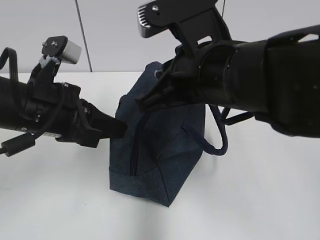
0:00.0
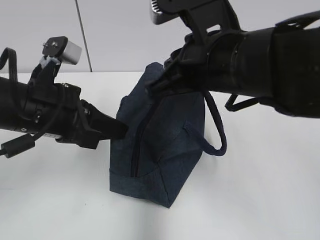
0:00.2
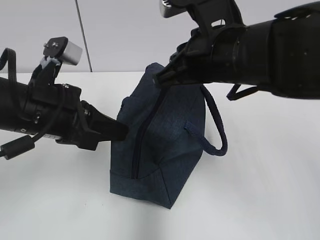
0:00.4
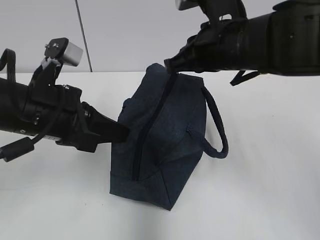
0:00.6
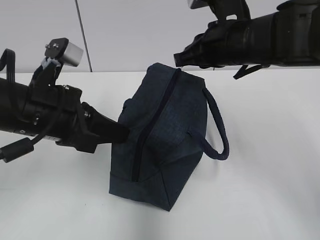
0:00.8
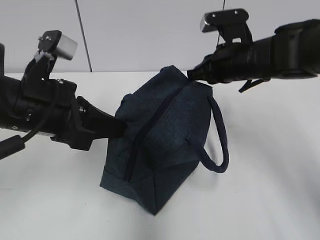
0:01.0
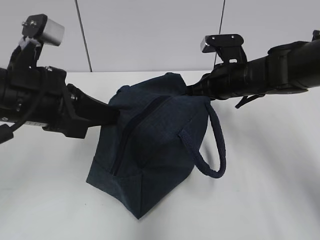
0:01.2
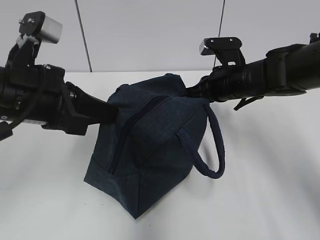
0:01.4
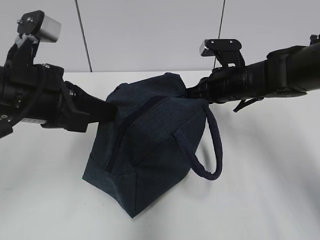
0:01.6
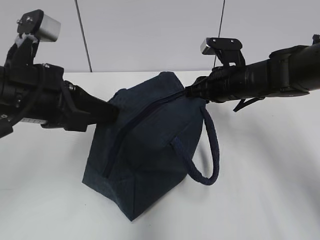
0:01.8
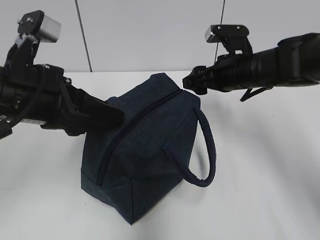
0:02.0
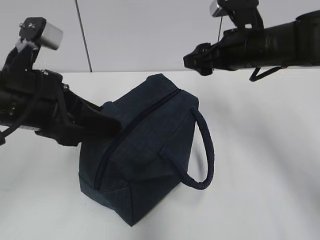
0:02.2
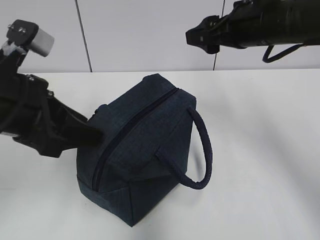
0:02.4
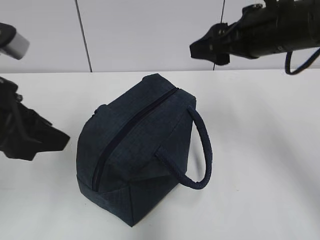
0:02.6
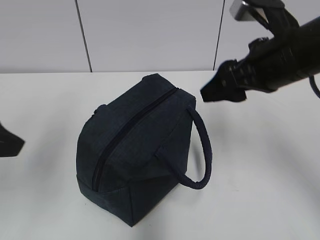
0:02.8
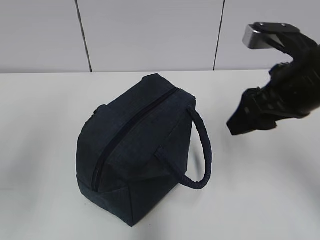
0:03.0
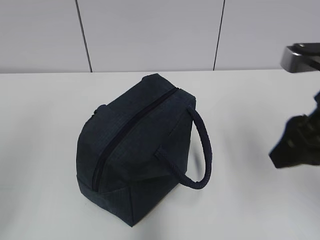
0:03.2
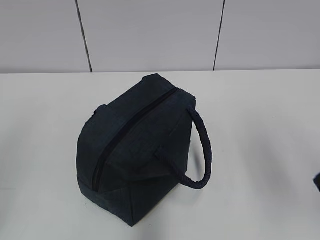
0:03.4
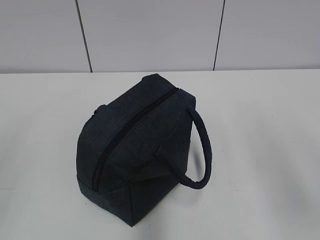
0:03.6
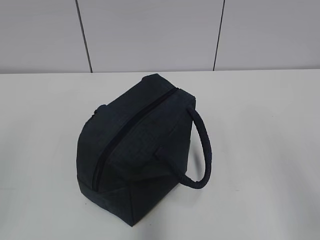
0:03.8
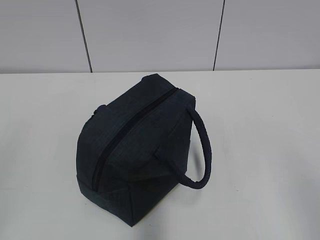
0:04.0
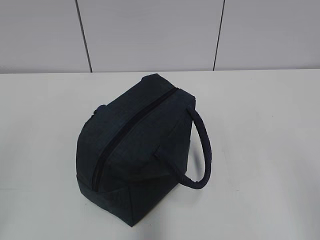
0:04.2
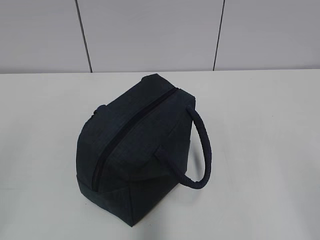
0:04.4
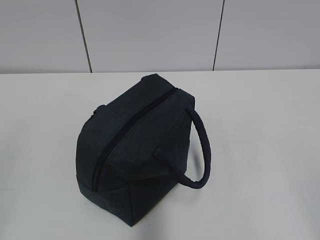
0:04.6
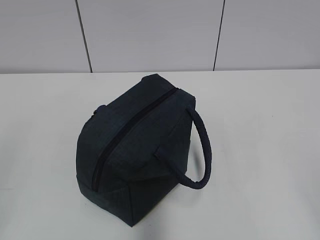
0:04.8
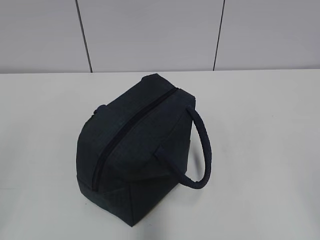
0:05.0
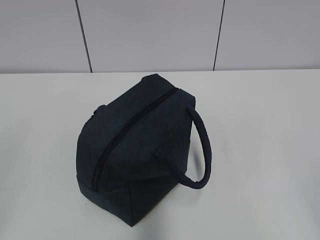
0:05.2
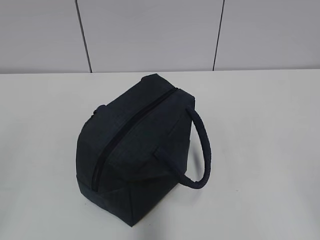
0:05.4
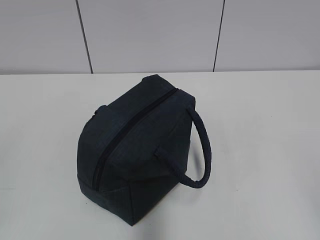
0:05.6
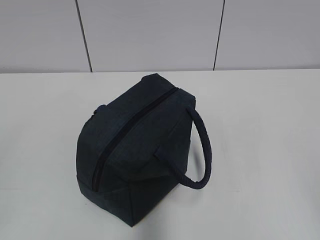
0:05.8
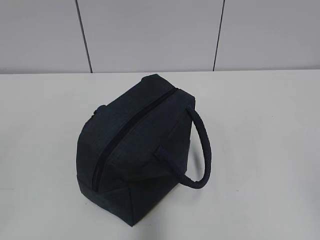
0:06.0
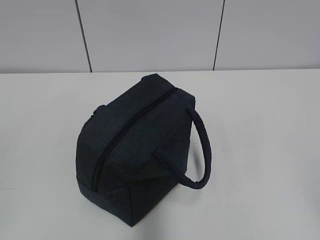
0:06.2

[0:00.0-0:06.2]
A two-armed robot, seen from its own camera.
0:00.0 to 0:01.6: The right gripper moves forward, downward and to the right, about 20 cm.
0:01.6 to 0:03.2: The right gripper travels backward and upward by approximately 25 cm, and opens. The left gripper moves backward, to the left and upward, roughly 20 cm, and opens up.
0:03.2 to 0:04.6: The right gripper heads backward, covering approximately 20 cm. The left gripper heads backward and downward, covering approximately 10 cm.
